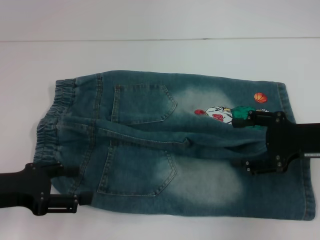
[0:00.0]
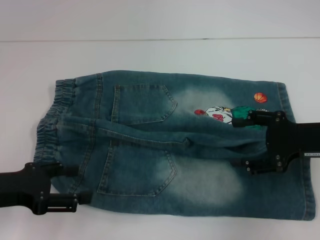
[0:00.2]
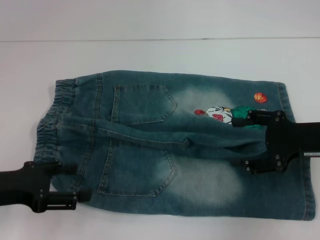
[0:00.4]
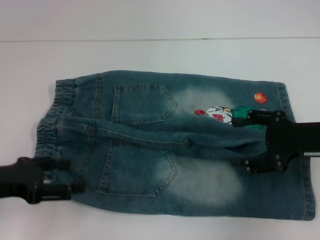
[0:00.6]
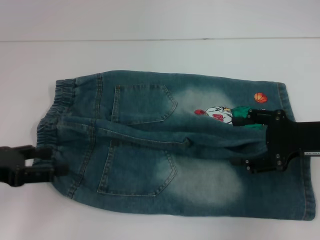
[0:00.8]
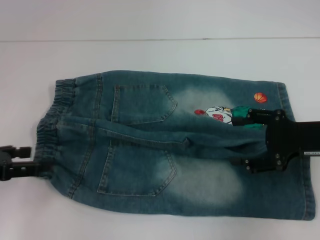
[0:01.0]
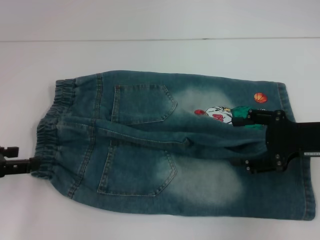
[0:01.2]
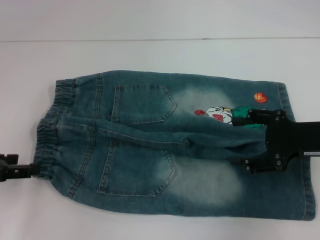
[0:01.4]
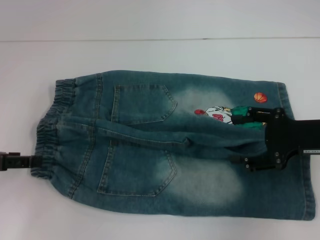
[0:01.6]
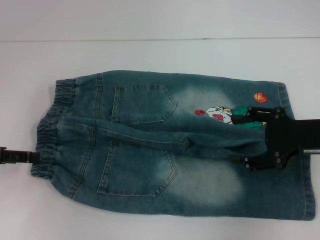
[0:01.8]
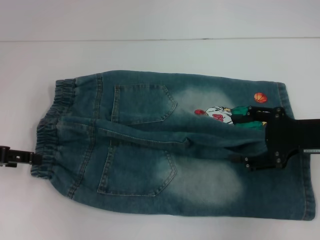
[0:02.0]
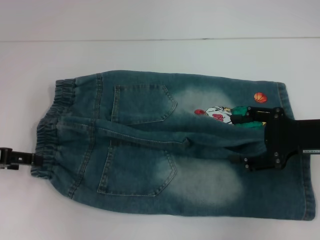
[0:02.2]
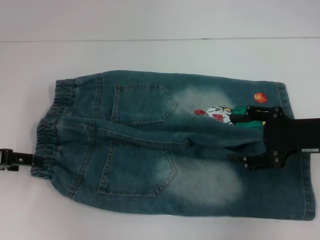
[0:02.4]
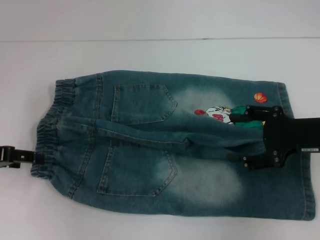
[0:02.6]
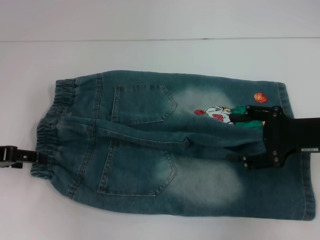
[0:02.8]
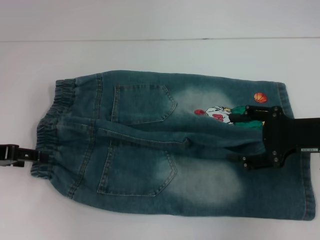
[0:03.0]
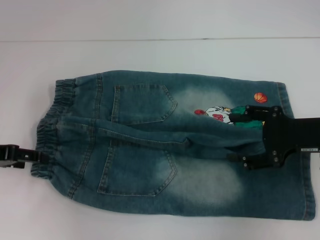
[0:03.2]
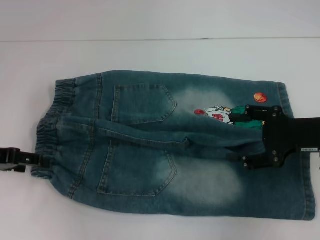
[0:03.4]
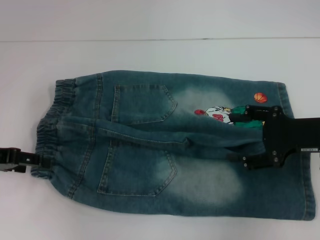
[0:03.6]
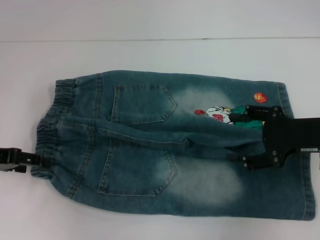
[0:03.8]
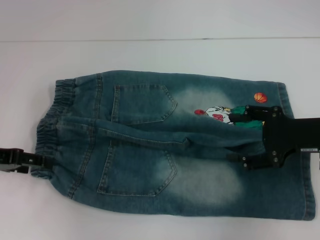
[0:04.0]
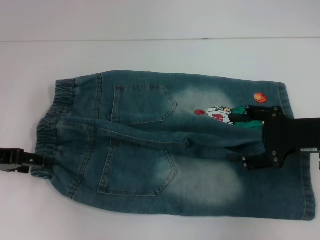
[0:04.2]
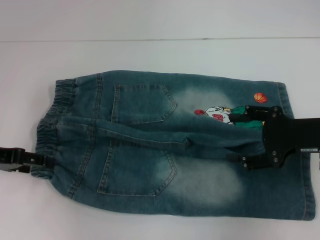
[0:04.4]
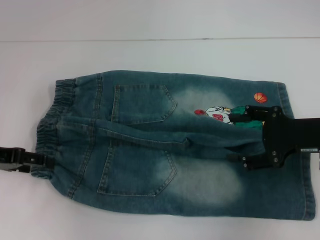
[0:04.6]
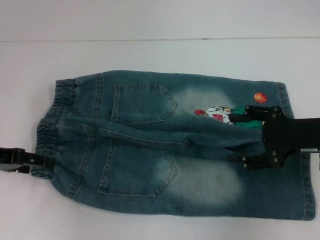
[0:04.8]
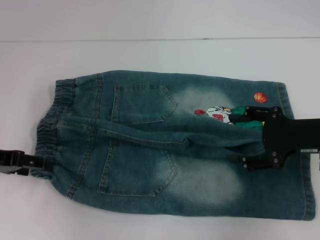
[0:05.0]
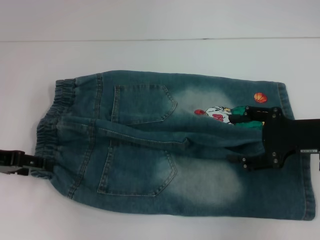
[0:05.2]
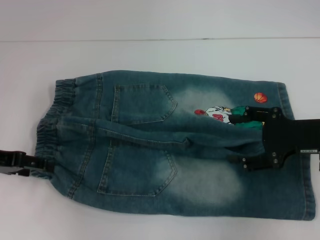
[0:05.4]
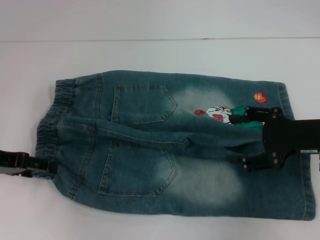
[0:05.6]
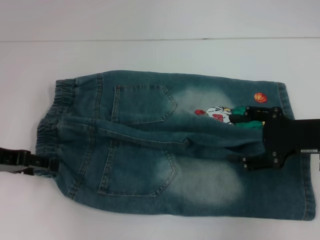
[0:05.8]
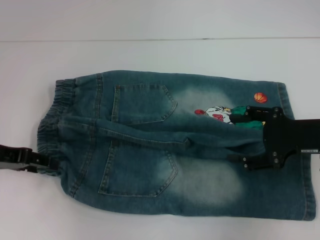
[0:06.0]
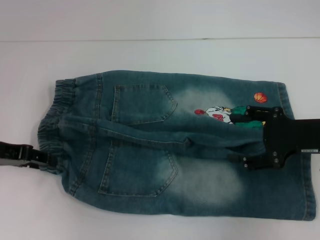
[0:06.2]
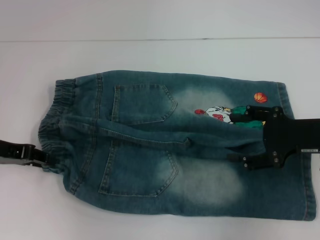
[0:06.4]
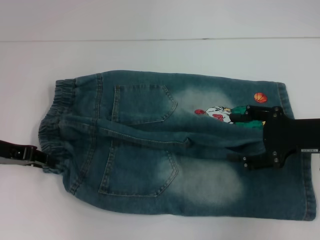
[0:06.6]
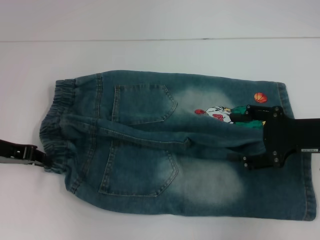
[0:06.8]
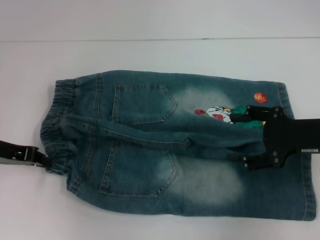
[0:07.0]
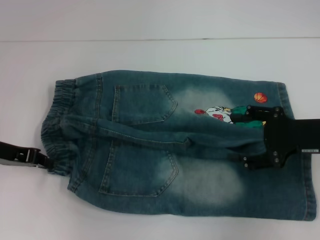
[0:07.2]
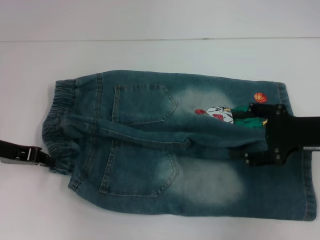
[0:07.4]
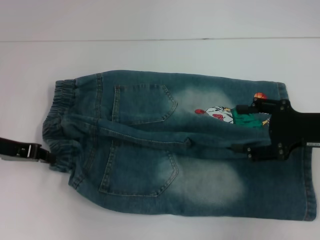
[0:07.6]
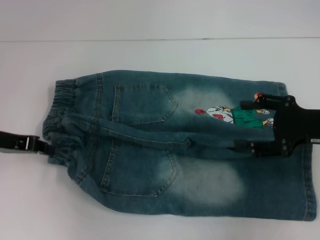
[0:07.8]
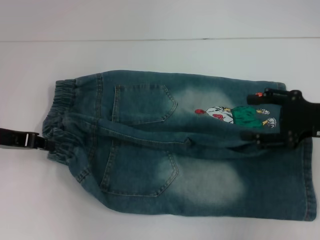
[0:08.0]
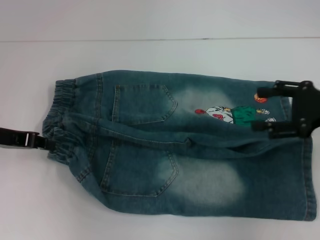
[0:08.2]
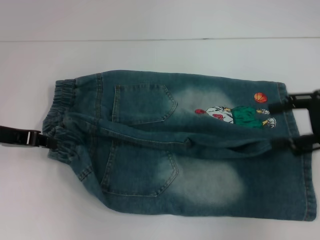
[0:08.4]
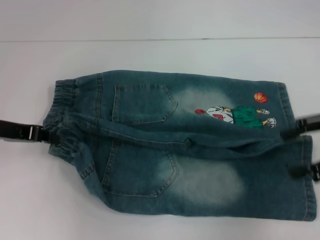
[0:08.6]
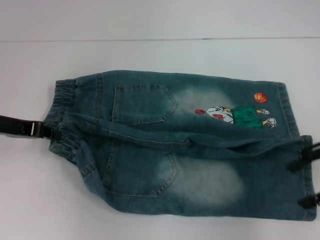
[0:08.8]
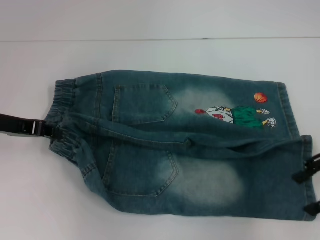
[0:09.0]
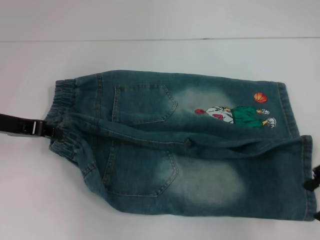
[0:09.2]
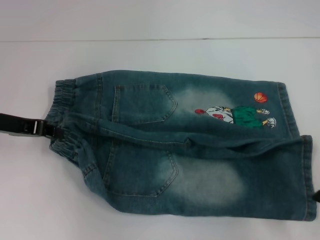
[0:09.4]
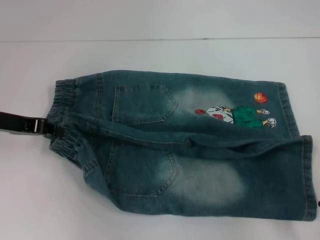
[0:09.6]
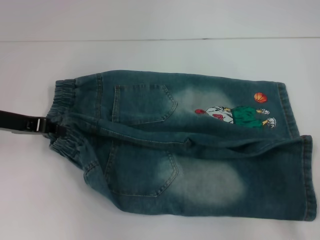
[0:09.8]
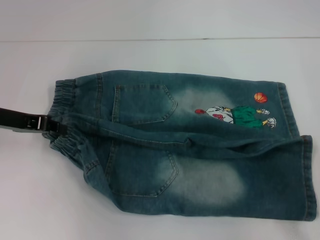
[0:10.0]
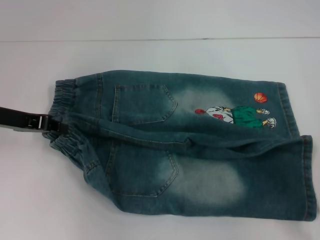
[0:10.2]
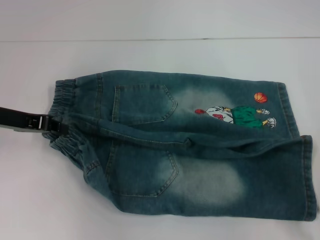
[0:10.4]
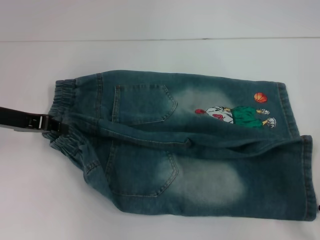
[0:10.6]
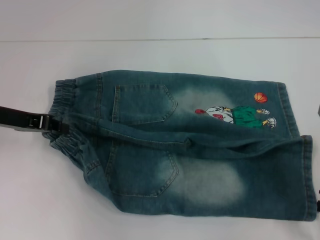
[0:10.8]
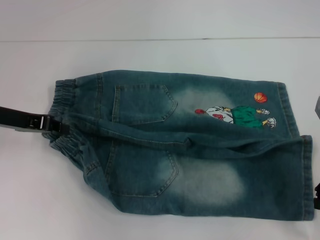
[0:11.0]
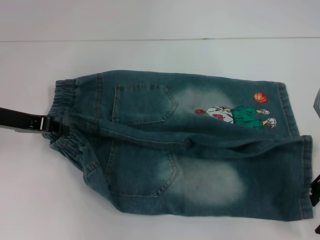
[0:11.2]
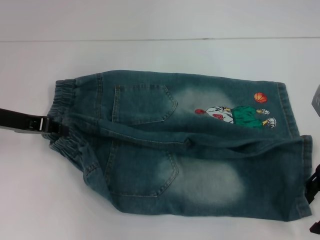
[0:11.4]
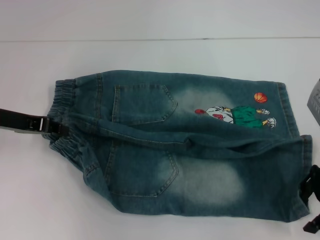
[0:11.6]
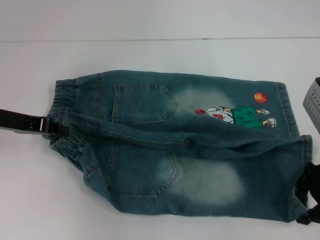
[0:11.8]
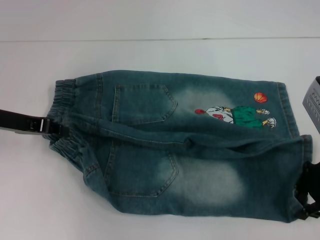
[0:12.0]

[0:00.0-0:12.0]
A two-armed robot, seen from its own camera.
Step, 0:00.0 to 0:06.8: Hold the lower left waistband with your left hand.
0:00.0 to 0:01.6: The left gripper heads to the left, covering approximately 5 cm.
0:01.6 to 0:03.0: The grippers make only small movements.
0:03.0 to 0:04.4: The two grippers keep their place.
0:04.4 to 0:06.0: Both grippers stay put.
0:06.0 to 0:07.6: The left gripper closes its fingers.
0:07.6 to 0:09.0: The right gripper changes place by some 5 cm.
0:10.4 to 0:12.0: The grippers move only a little.

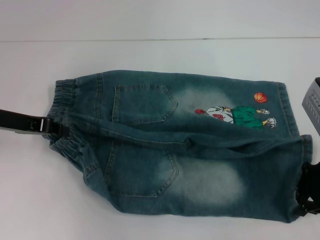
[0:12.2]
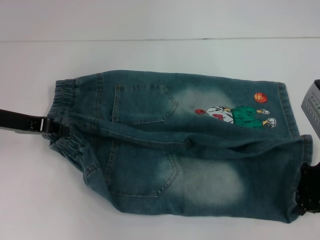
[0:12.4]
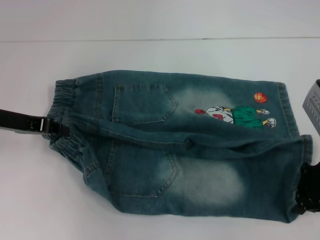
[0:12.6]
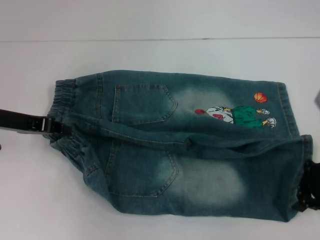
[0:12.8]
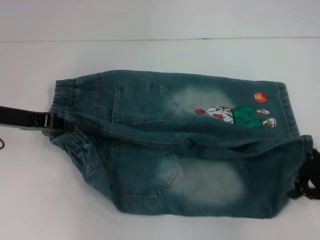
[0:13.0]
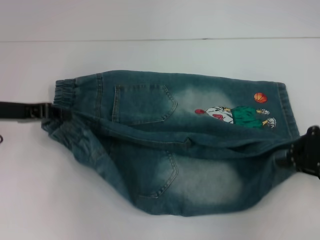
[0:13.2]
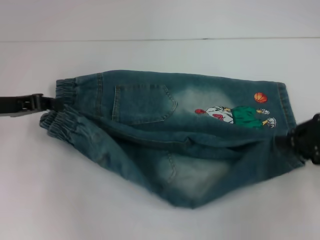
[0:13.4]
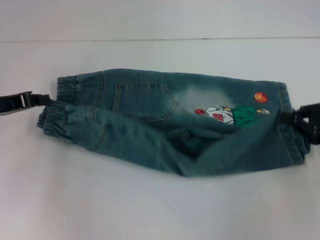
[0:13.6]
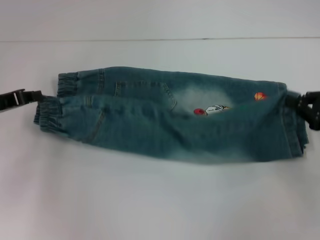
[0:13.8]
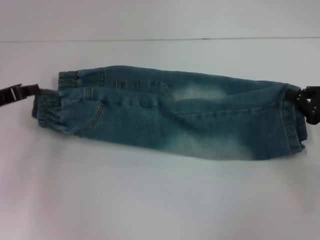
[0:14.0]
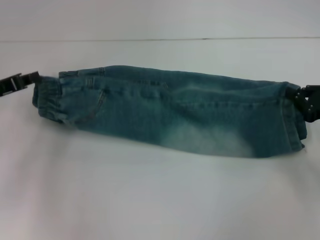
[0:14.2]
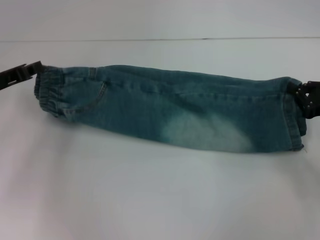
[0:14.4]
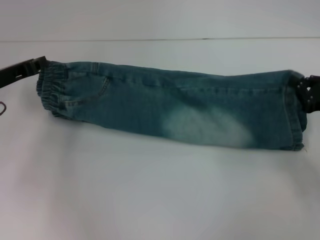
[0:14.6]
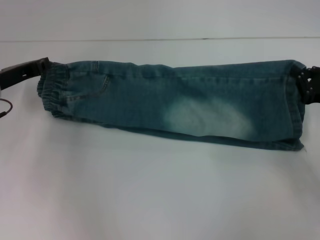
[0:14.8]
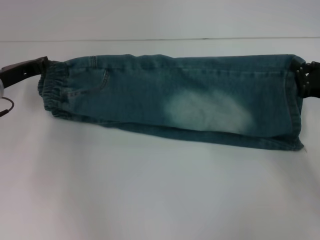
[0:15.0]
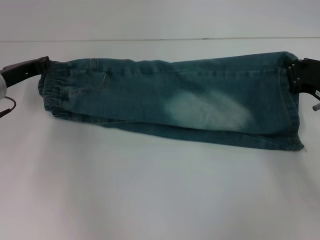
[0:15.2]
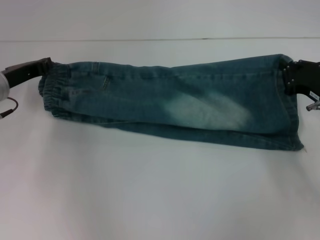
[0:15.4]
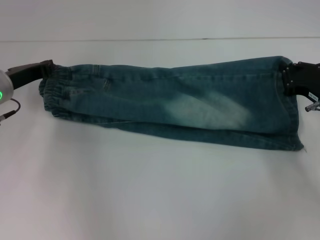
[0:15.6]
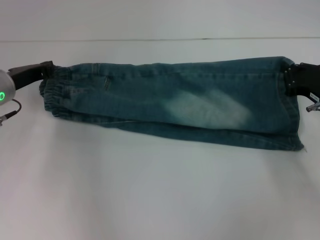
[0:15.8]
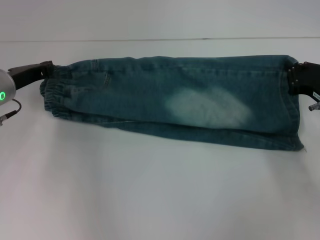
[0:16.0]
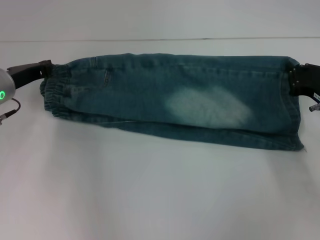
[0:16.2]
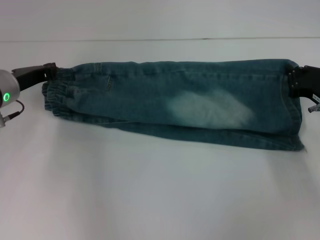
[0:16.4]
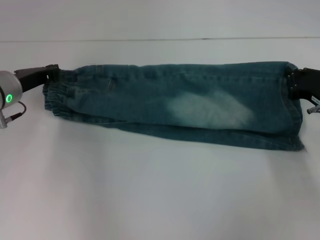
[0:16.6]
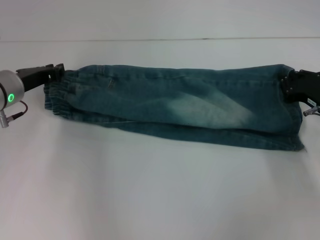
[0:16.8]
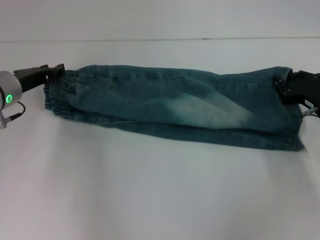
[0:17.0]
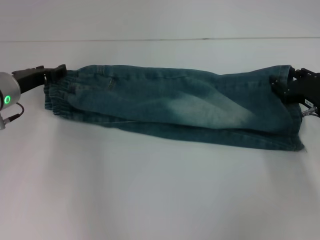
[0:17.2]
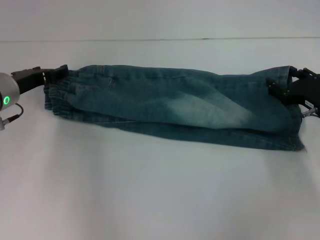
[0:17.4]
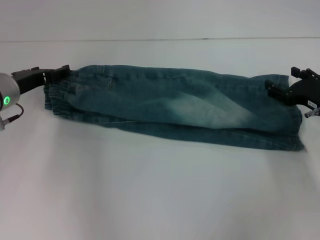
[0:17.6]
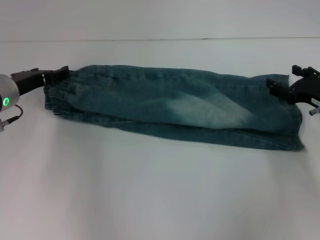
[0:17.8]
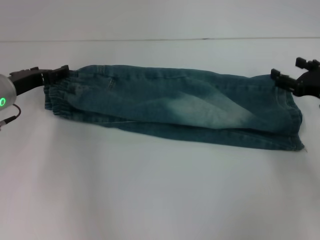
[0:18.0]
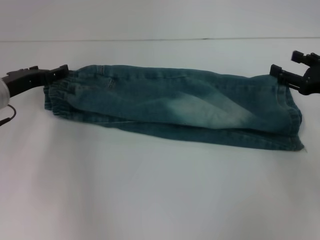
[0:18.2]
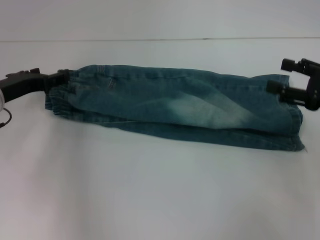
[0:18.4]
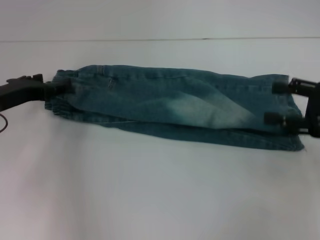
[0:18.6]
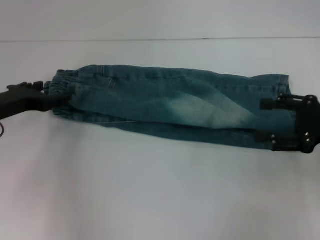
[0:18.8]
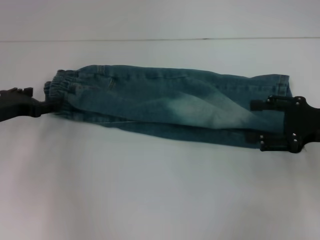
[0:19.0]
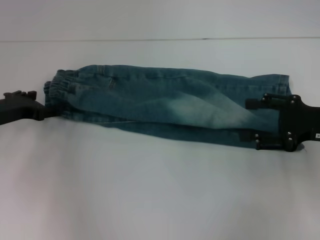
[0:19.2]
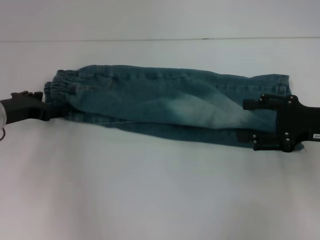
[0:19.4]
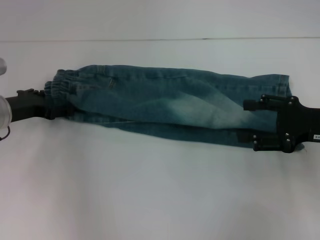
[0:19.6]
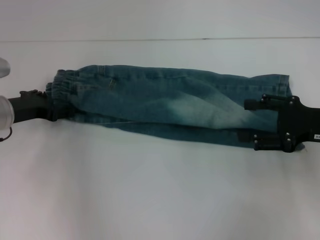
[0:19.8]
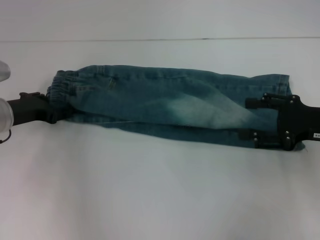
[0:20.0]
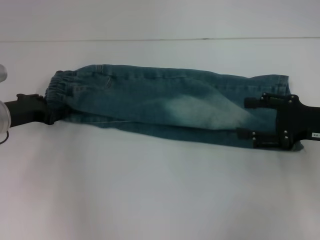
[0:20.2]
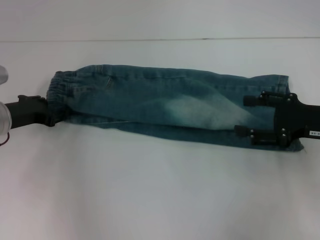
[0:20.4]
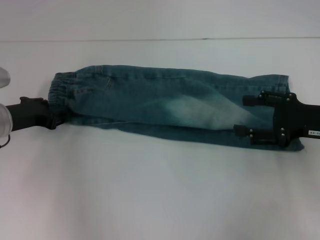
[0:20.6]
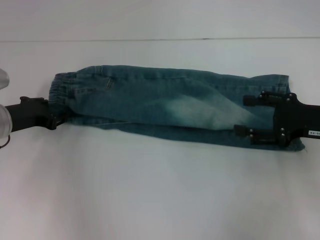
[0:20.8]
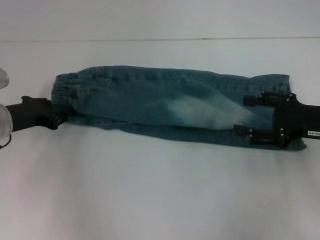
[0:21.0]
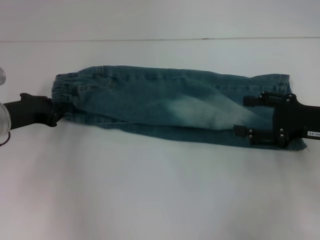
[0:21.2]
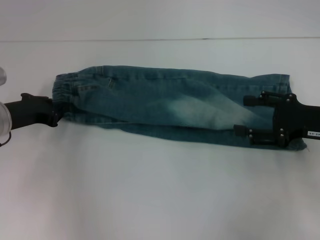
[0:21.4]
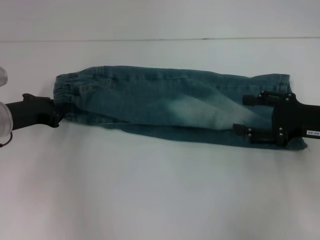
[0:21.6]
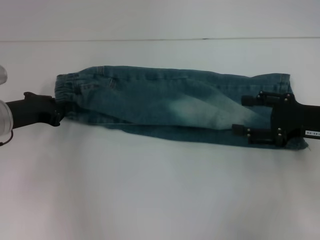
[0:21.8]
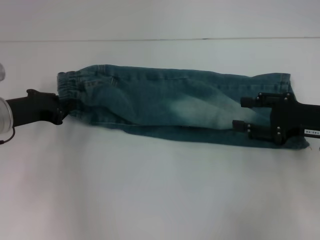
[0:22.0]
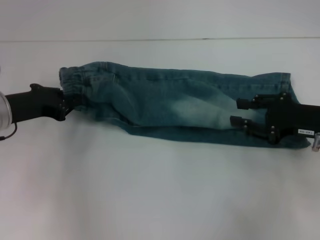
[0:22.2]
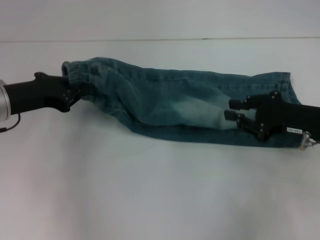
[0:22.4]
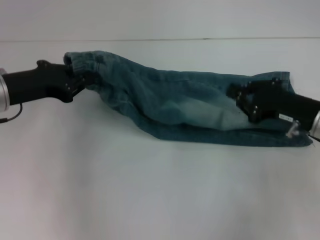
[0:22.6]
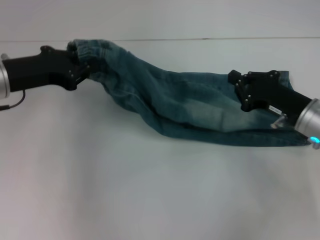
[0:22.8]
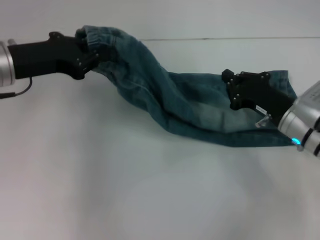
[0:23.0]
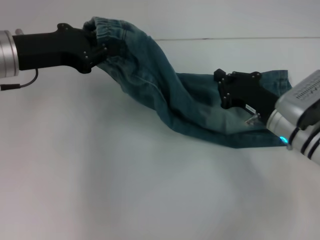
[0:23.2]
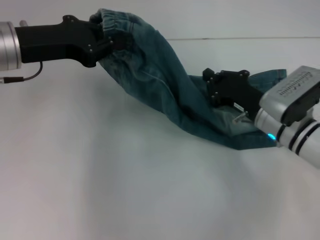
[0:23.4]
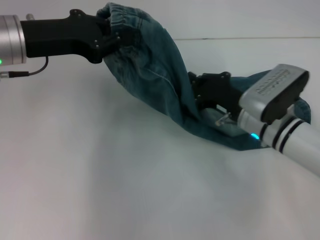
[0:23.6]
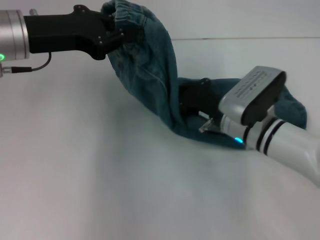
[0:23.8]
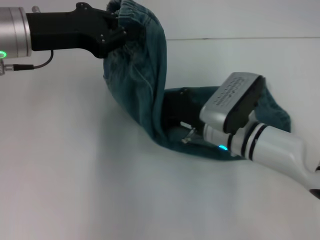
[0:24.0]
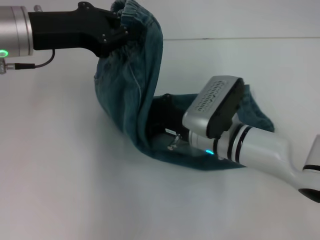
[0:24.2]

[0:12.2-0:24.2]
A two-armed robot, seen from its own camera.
Step, 0:12.6 to 0:17.8: Fold upward with your right hand.
Step, 0:18.0 to 0:21.4: Hold the waistband with your left hand.
0:12.2 to 0:13.8: The right gripper heads to the right, covering some 10 cm, and closes its fingers.
0:13.8 to 0:15.2: The left gripper heads forward, covering approximately 5 cm. Meanwhile the right gripper changes place by roughly 5 cm.
0:15.2 to 0:16.6: The grippers stay close to where they were, moving slightly.
0:16.6 to 0:18.2: The left gripper opens; the right gripper moves about 5 cm, and opens.
0:19.8 to 0:21.2: The left gripper closes up.
0:21.2 to 0:22.6: The right gripper closes its fingers. Meanwhile the left gripper shifts roughly 5 cm upward.
0:22.6 to 0:24.2: The right gripper travels to the left by about 15 cm, and closes its fingers, while the left gripper goes some 10 cm upward and to the right.
